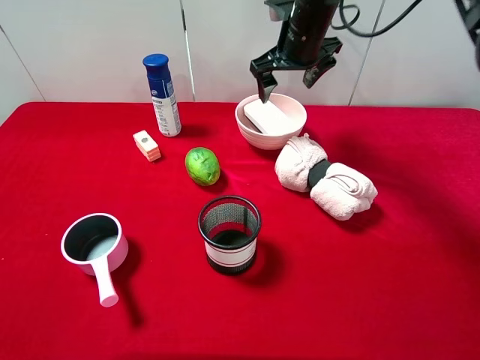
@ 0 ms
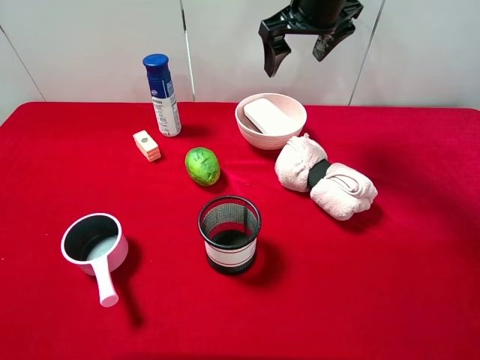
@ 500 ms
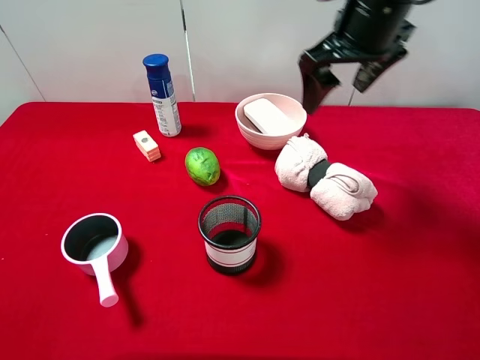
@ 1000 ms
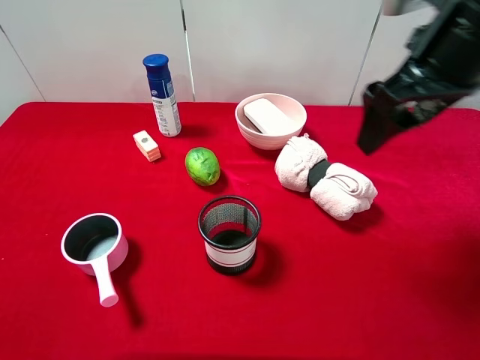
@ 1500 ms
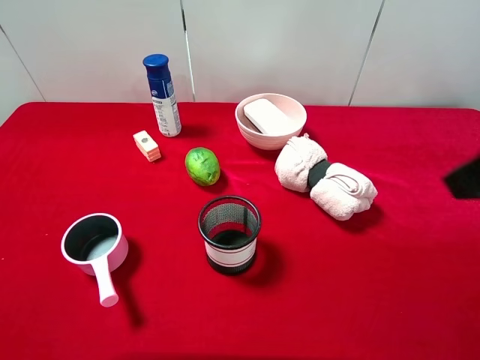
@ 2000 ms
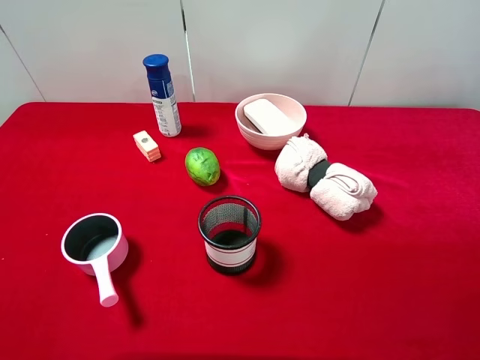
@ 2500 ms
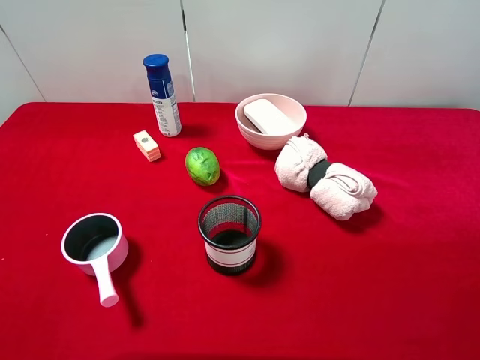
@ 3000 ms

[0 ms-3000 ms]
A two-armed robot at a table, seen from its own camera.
Task of the whole recording: pick up an item with a gripper and place it in a random container on the desktop.
0 ms to 1500 ms: The right gripper heads backward, to the right and upward, covering approximately 25 cm.
1500 ms to 3000 ms: The right gripper is displaced backward and to the right by some 25 cm.
